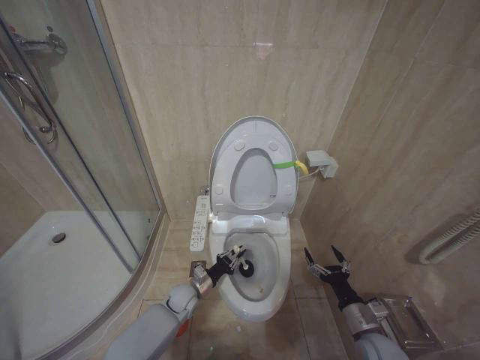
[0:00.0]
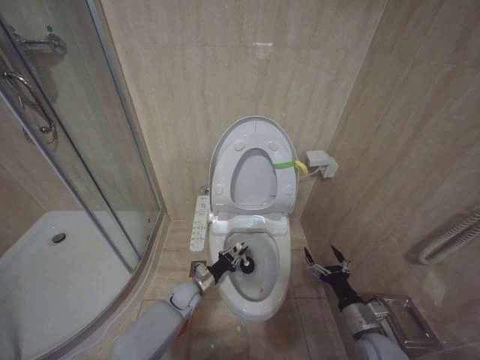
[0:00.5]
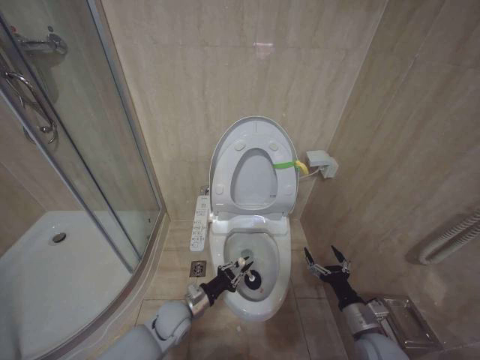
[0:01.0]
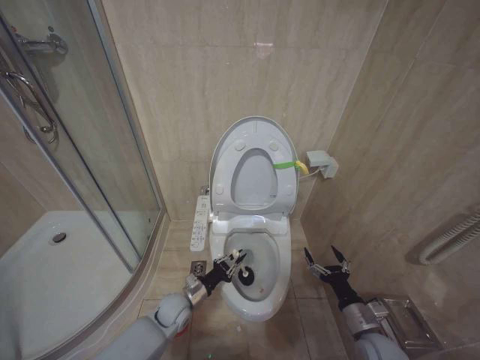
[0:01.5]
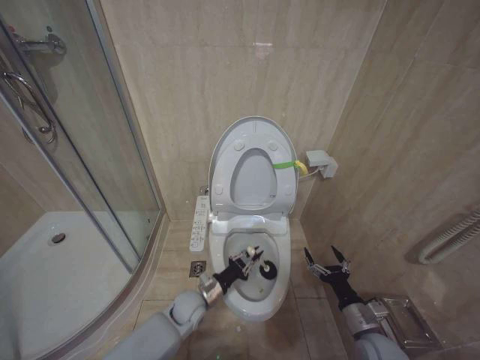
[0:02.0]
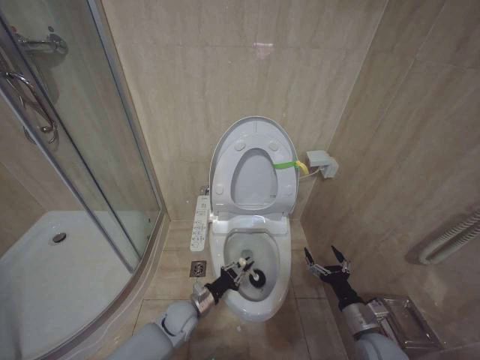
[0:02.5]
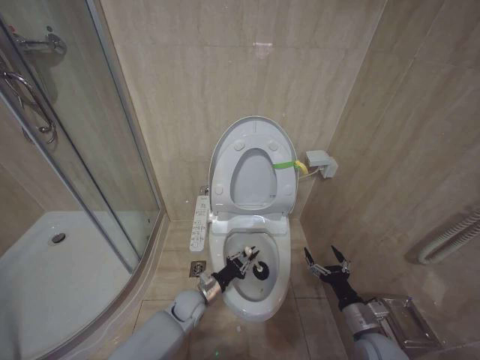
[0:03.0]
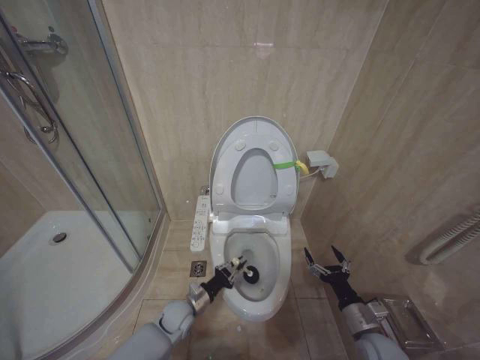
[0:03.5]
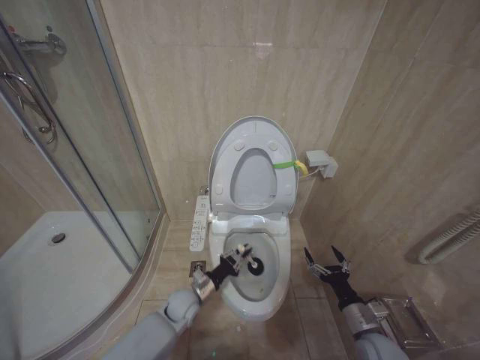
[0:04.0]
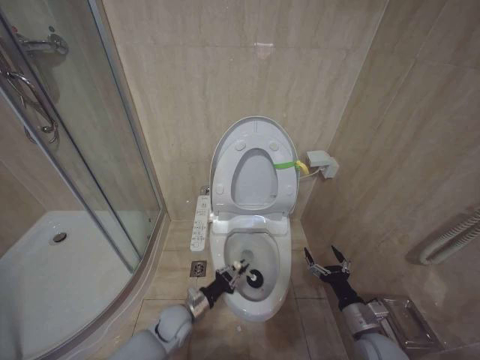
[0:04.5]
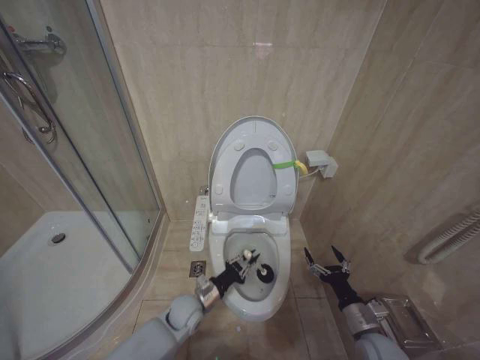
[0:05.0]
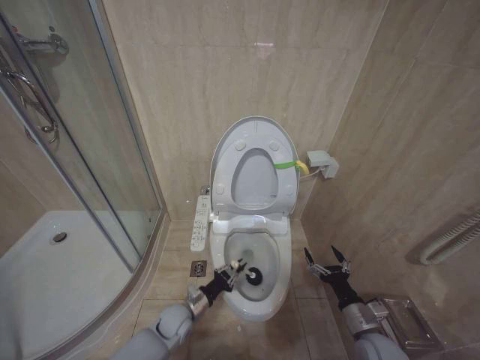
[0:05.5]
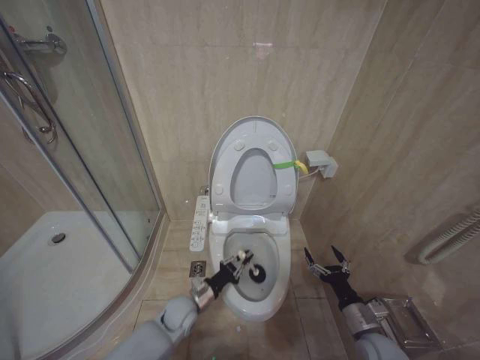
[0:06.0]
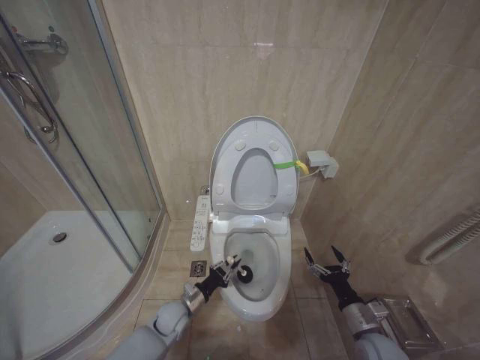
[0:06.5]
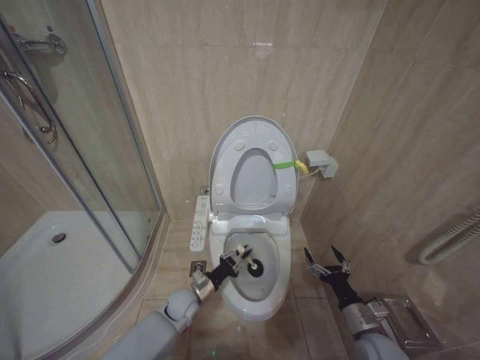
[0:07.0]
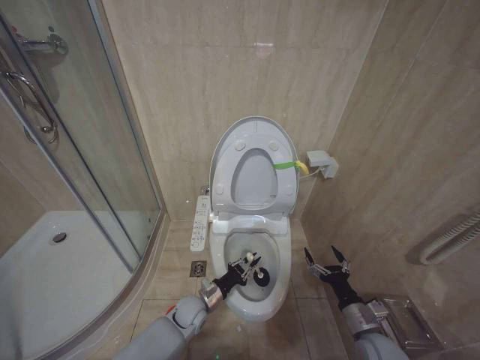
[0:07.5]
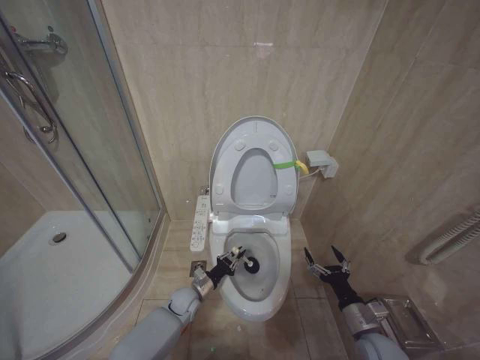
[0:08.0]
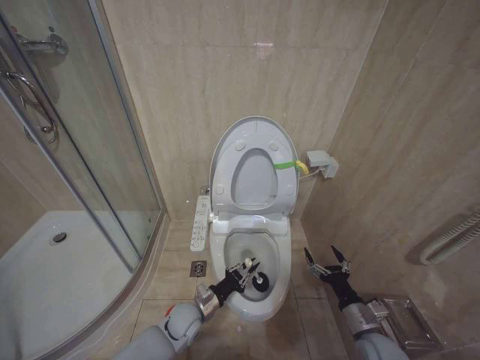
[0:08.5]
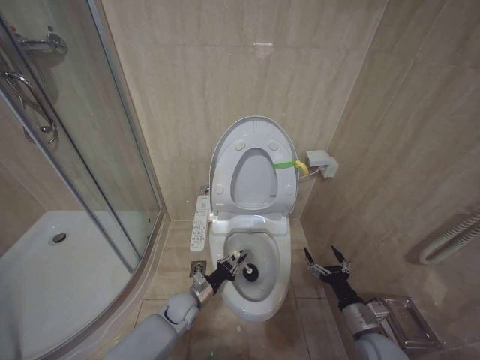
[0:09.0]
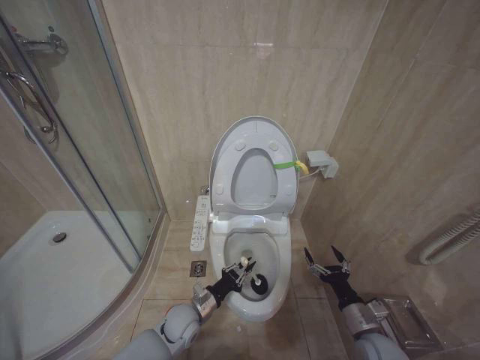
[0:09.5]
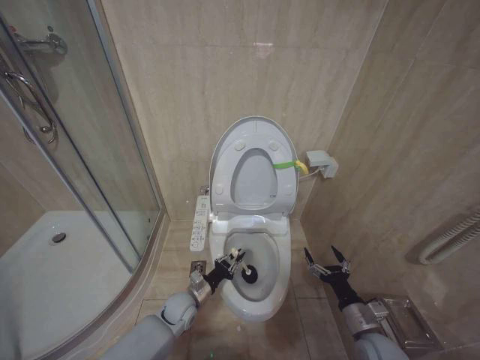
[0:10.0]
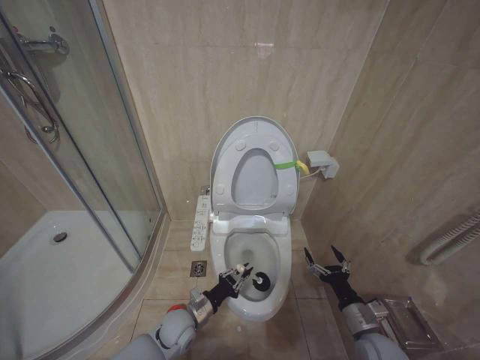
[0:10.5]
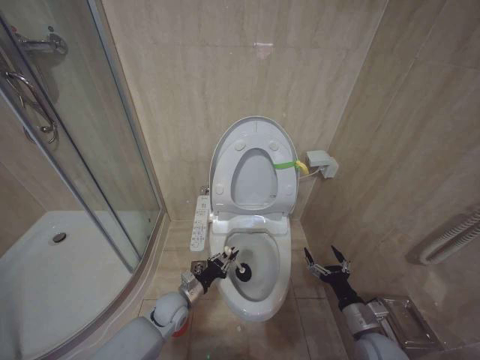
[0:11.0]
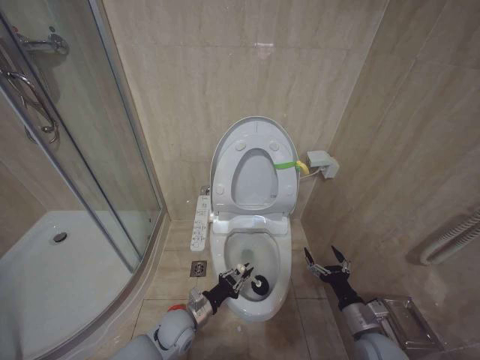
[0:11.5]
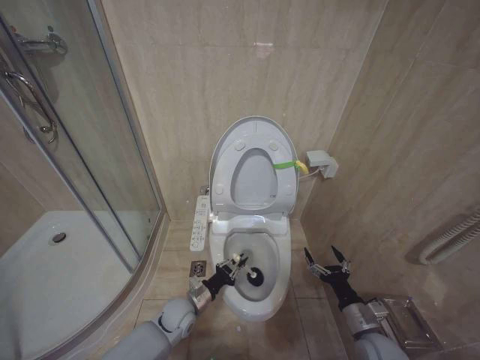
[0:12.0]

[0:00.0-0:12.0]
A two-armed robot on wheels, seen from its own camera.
Task of the whole recording: Open the toilet lid, clean the toilet bowl with a toilet brush, close the toilet lid, and flush.
0:00.0 to 0:02.0: The left gripper shifts by roughly 5 cm.
0:06.0 to 0:08.0: The left gripper shifts by approximately 5 cm.
0:08.0 to 0:10.0: The left gripper moves forward and backward over about 5 cm, changing direction 3 times.
0:10.0 to 0:12.0: The left gripper goes forward and backward, some 5 cm each way, reversing 3 times.

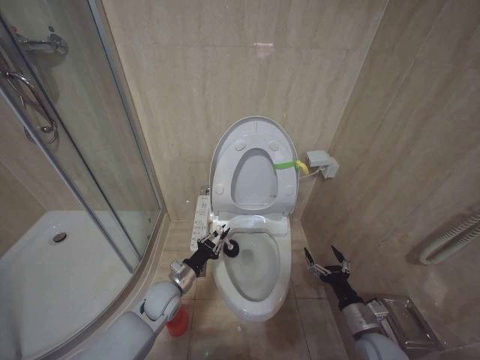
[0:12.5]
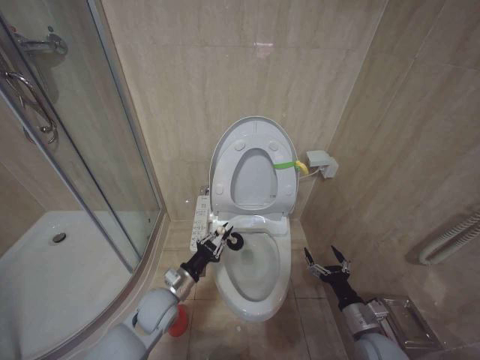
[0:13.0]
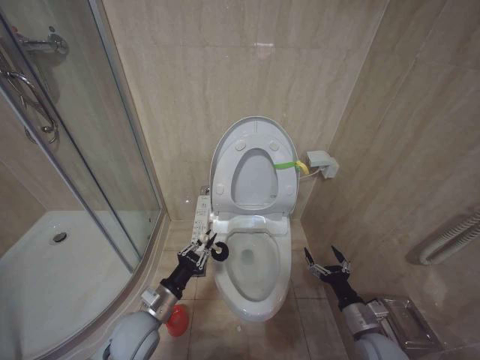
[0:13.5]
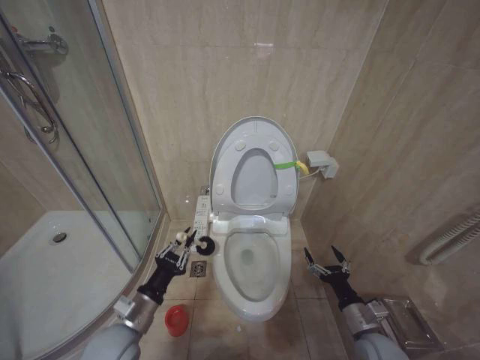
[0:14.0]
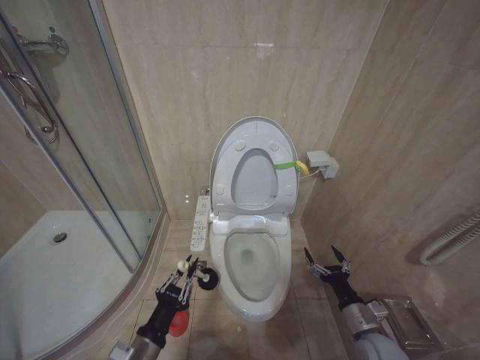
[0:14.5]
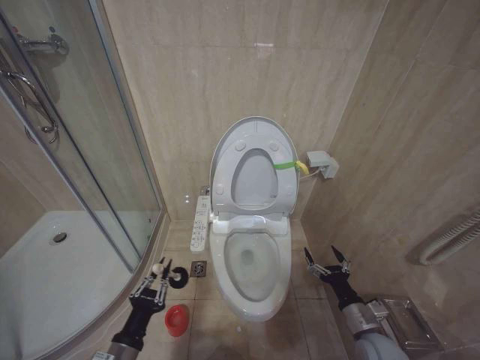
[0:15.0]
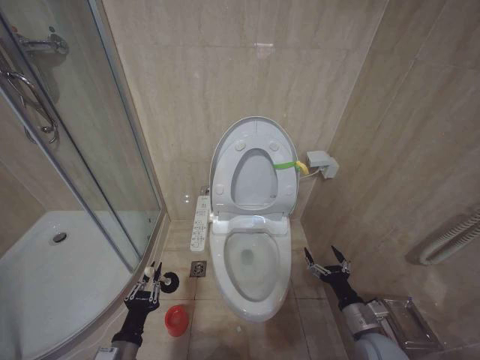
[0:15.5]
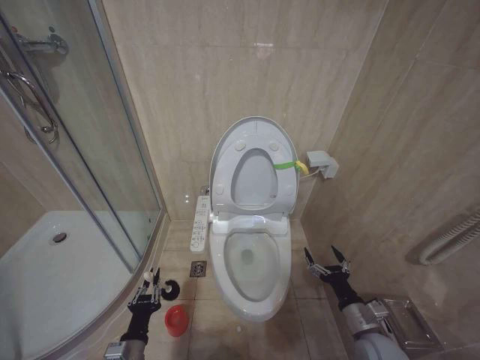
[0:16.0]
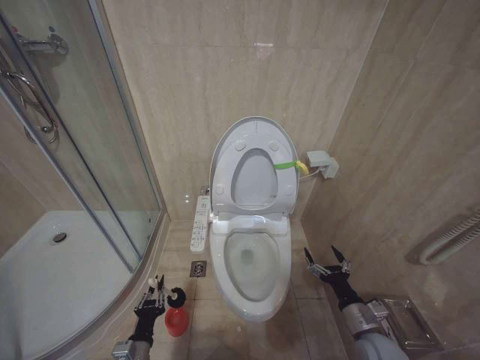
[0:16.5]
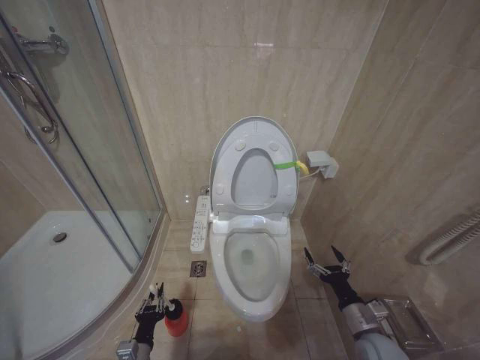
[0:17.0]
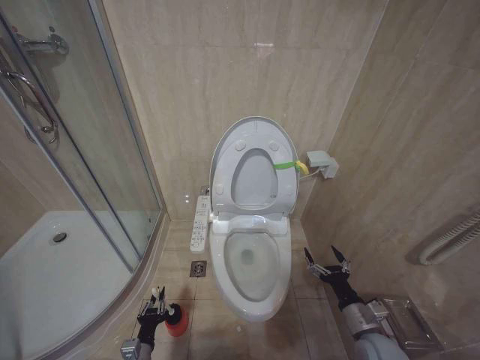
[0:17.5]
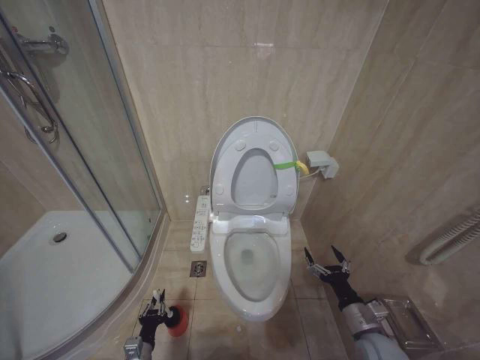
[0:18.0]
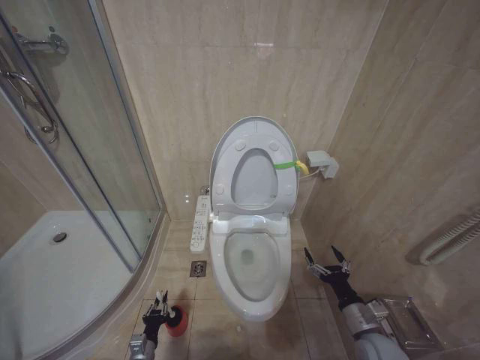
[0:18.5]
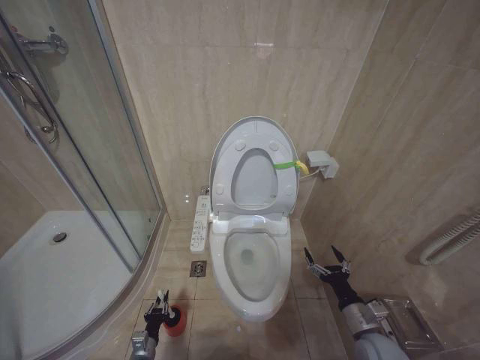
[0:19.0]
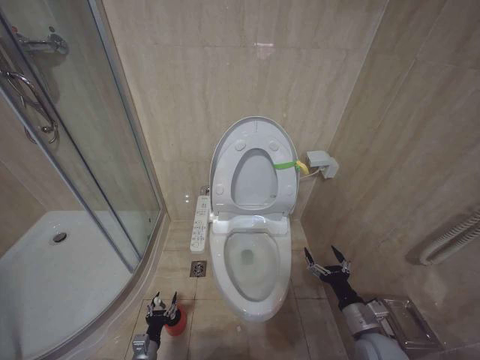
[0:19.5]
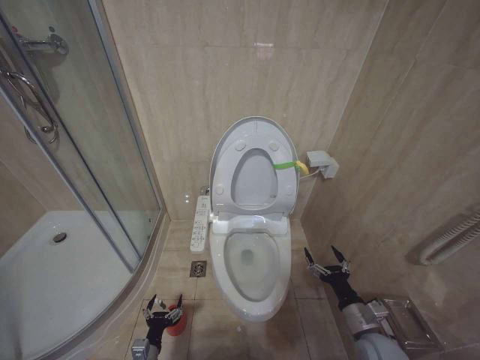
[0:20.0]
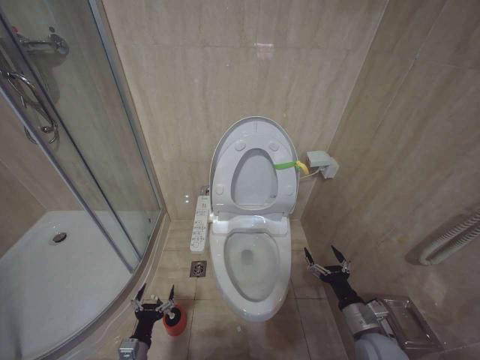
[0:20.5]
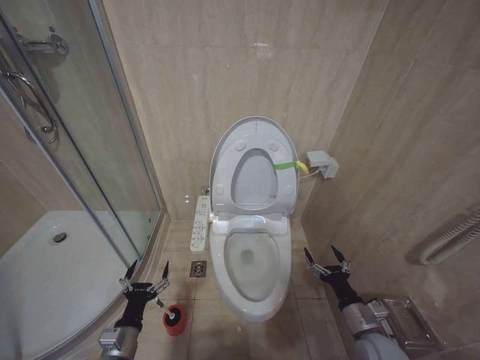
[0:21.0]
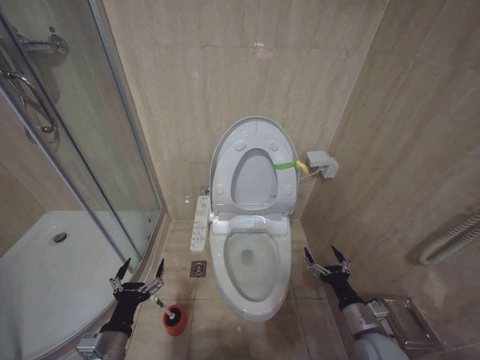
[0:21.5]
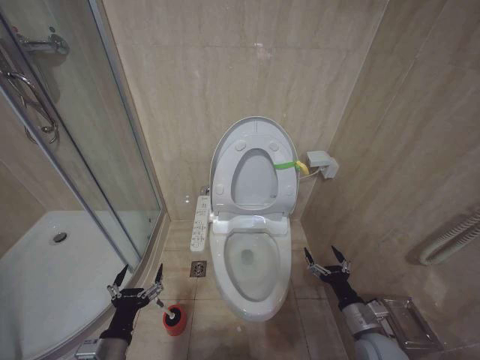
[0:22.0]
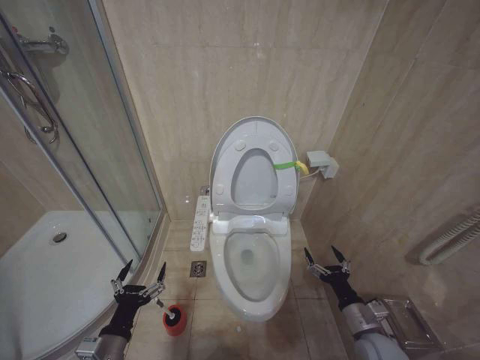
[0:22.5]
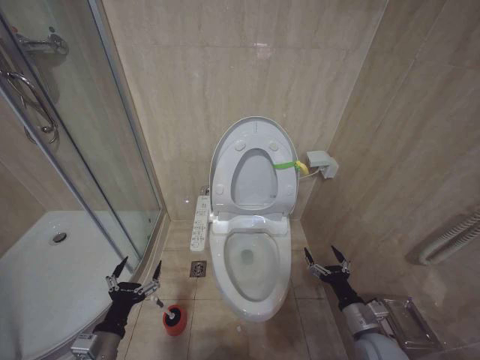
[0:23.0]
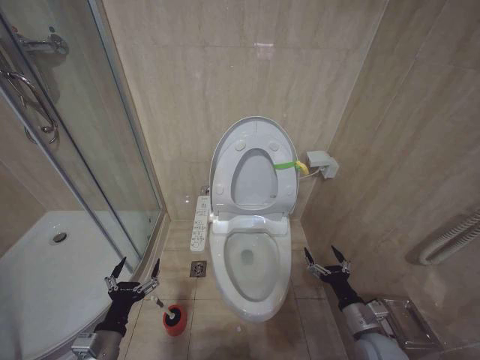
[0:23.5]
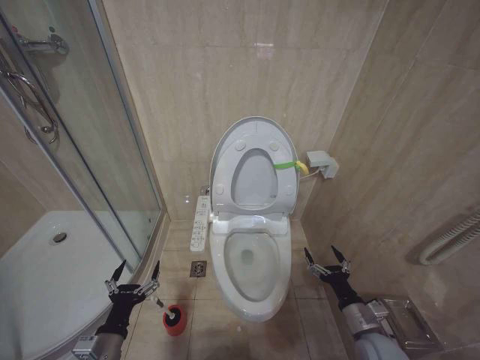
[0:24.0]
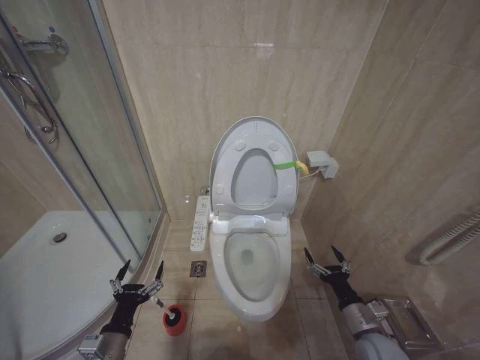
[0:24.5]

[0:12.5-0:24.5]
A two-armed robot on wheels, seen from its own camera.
Task of the whole recording: Open the toilet lid, clean the toilet bowl with a toilet brush, close the toilet lid, and flush.
0:12.5 to 0:14.5: The left gripper goes approximately 20 cm backward.
0:14.5 to 0:16.5: The left gripper is displaced downward by about 15 cm.
0:16.5 to 0:18.5: The left gripper is displaced downward by about 10 cm.
0:18.5 to 0:20.5: The left gripper moves upward, approximately 5 cm, and opens its fingers.
0:20.5 to 0:22.5: The left gripper heads upward, covering roughly 15 cm.

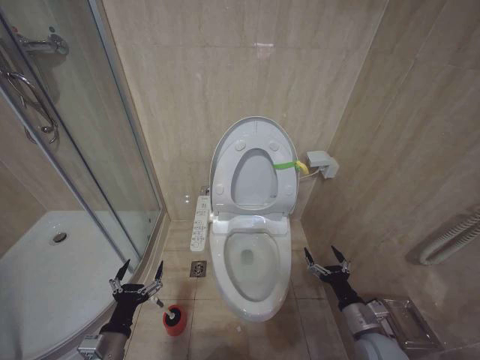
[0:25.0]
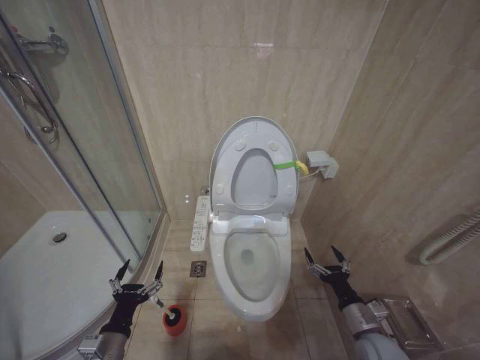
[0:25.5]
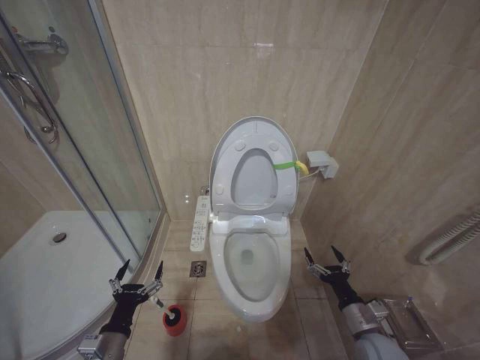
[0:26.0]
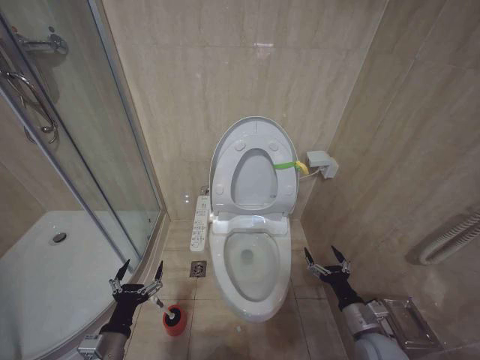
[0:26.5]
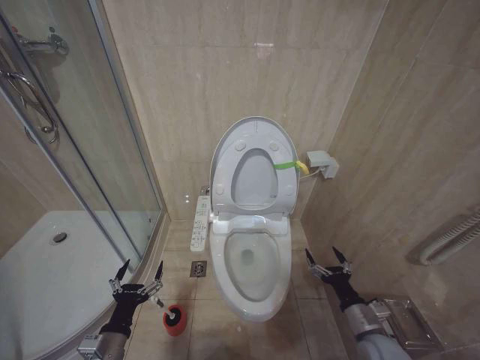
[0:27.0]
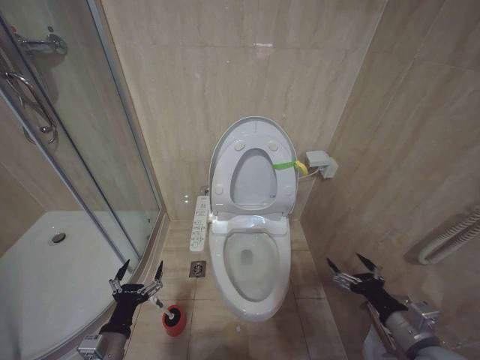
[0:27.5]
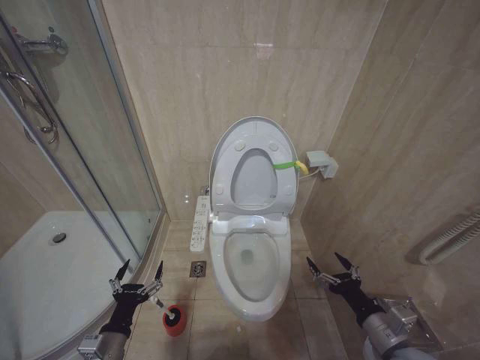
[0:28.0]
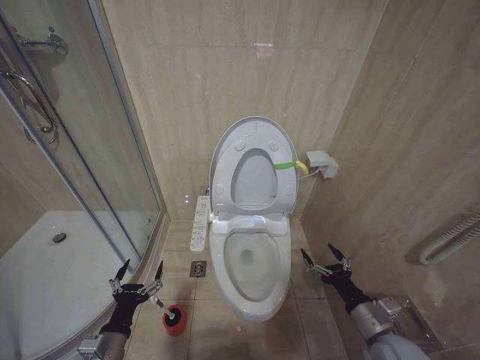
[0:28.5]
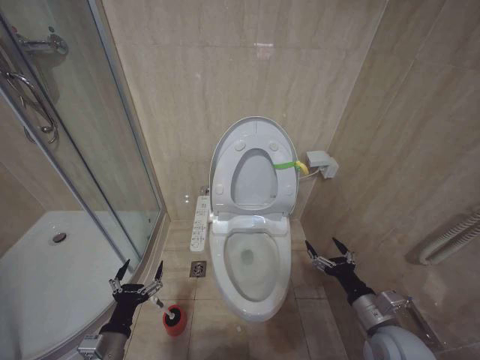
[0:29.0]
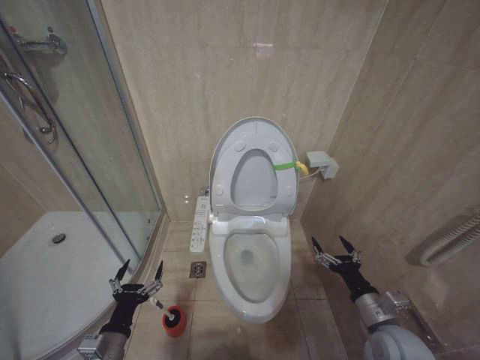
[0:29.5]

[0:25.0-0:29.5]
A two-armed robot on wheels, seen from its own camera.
Task of the whole recording: Open the toilet lid, clean the toilet bowl with a toilet brush, close the toilet lid, and flush.
0:25.0 to 0:27.0: The two grippers keep their place.
0:27.0 to 0:29.5: The right gripper heads upward, covering approximately 5 cm.
